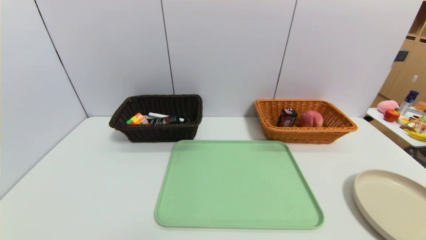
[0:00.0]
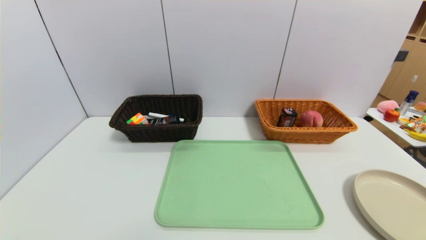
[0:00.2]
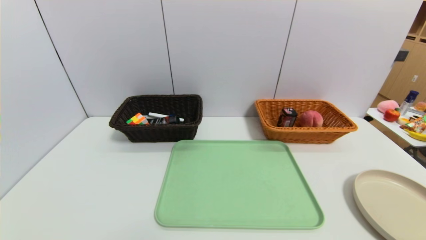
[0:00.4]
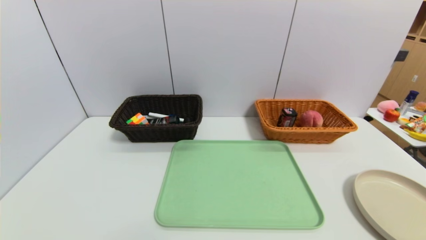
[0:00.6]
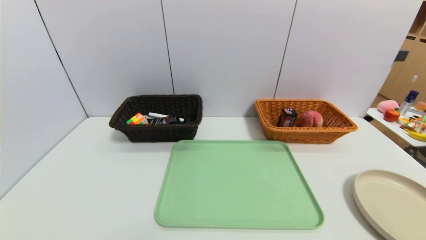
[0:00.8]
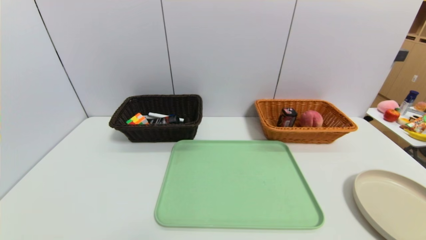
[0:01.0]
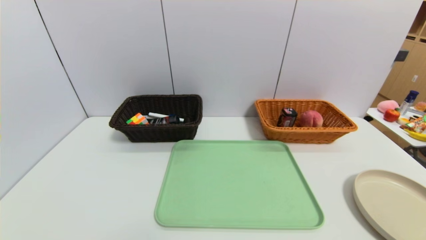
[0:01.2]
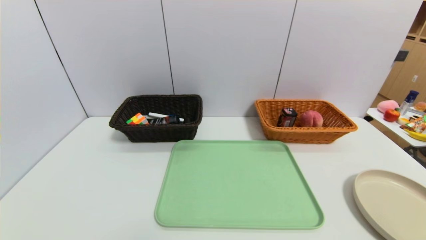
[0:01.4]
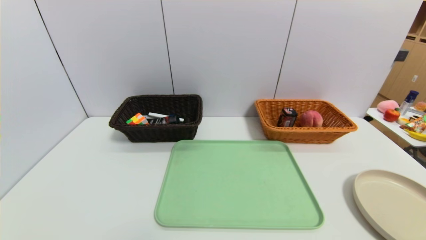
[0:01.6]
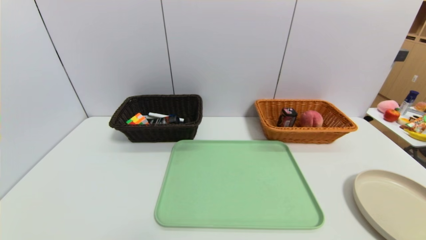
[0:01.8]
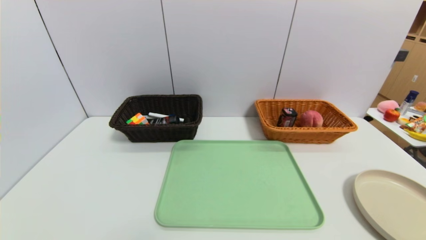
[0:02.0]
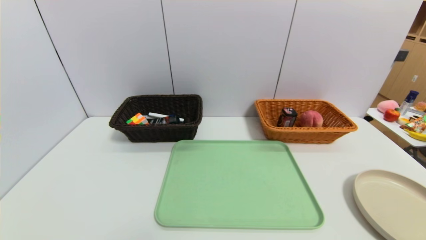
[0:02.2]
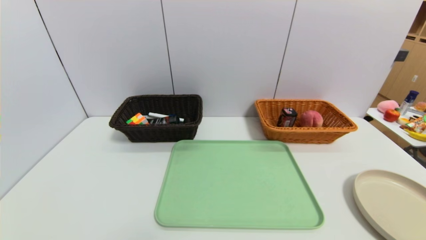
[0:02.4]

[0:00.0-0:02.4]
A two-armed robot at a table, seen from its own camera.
Task of the whole recording: place the food in the right basket with the right gripper, and place the non food items in the left basket with the left gripper.
1.2 to 2.4 s: Both grippers stay put.

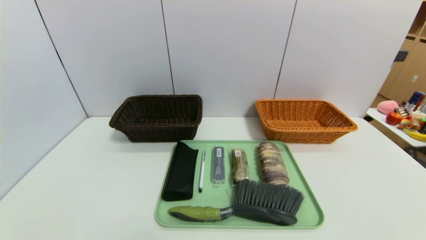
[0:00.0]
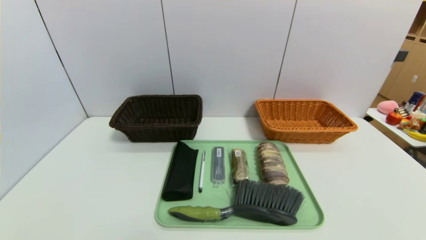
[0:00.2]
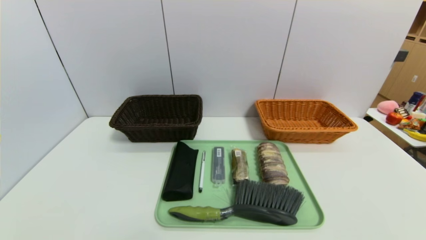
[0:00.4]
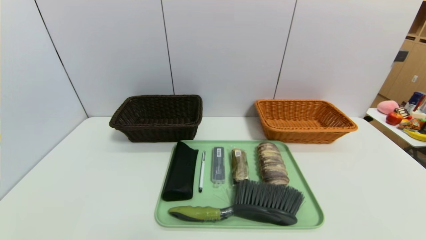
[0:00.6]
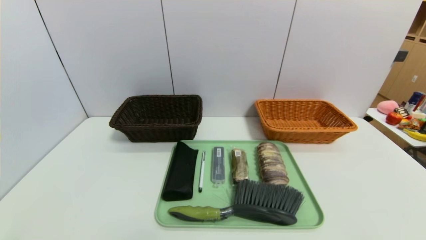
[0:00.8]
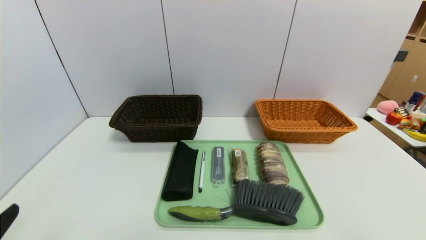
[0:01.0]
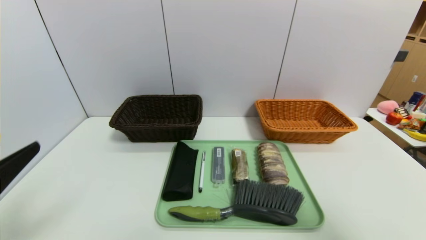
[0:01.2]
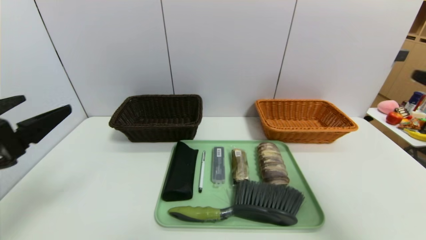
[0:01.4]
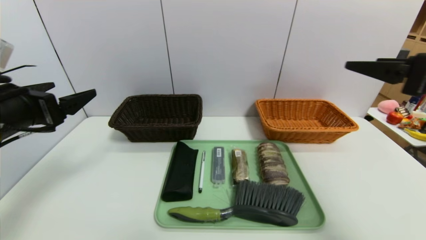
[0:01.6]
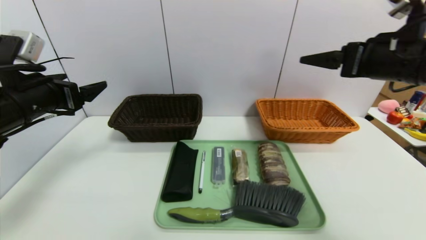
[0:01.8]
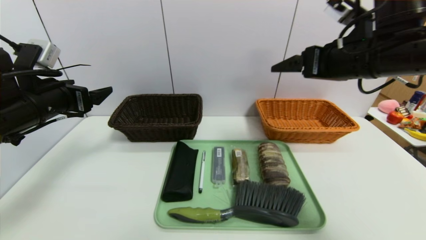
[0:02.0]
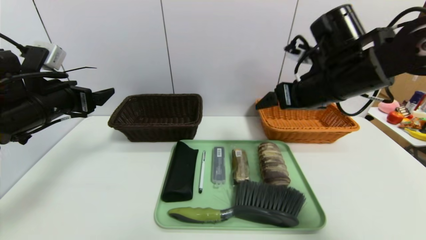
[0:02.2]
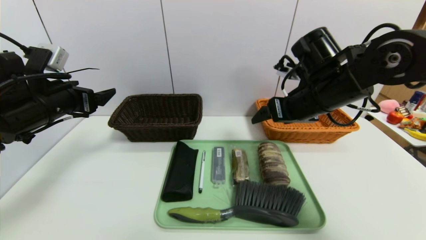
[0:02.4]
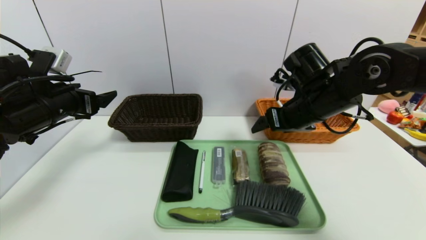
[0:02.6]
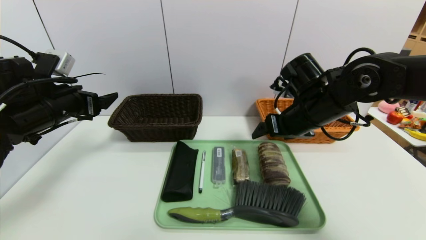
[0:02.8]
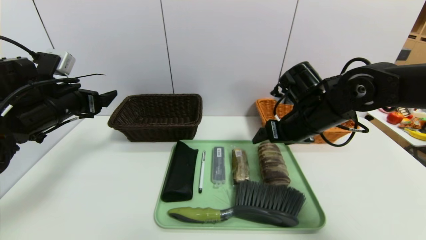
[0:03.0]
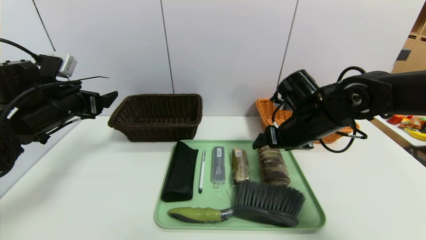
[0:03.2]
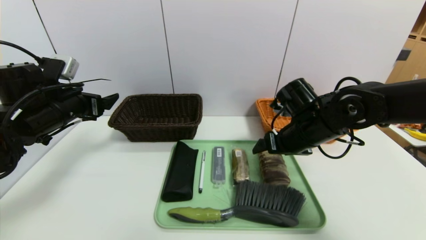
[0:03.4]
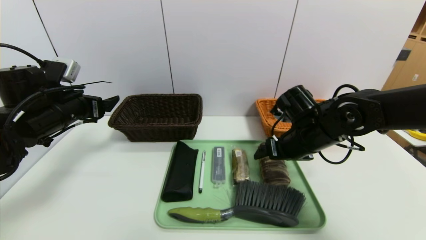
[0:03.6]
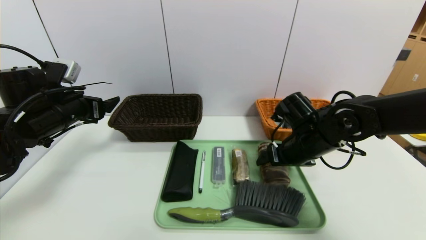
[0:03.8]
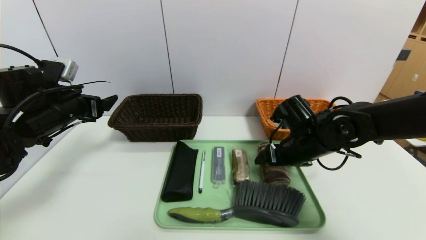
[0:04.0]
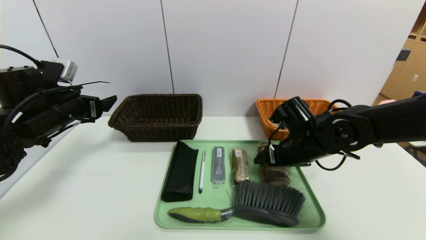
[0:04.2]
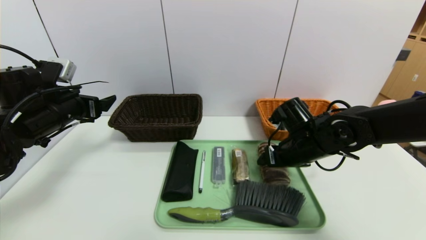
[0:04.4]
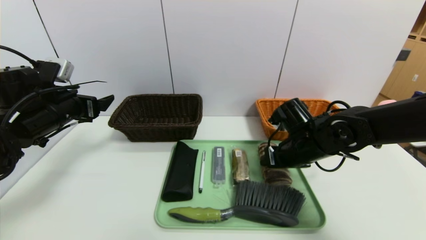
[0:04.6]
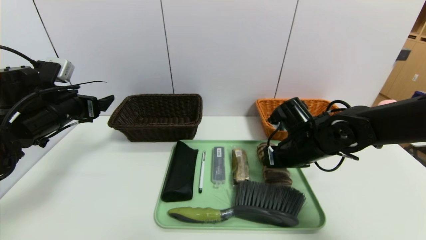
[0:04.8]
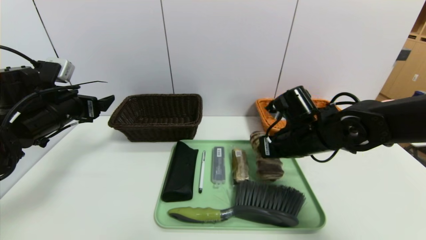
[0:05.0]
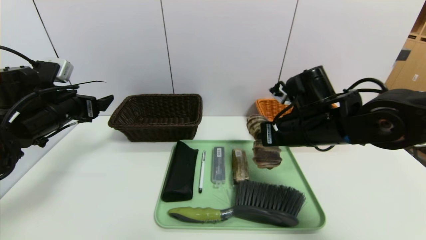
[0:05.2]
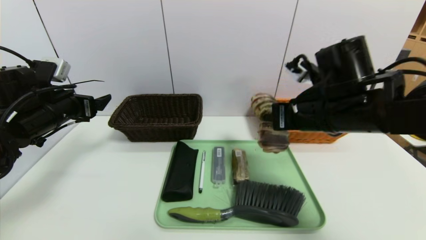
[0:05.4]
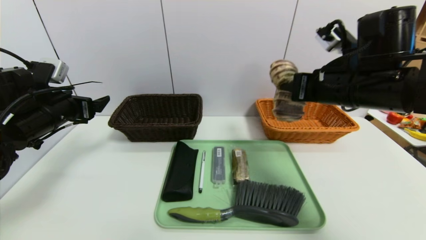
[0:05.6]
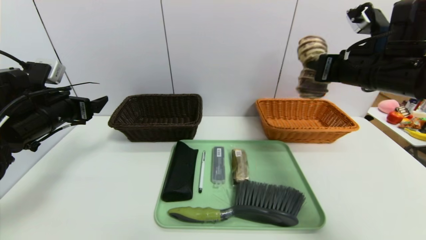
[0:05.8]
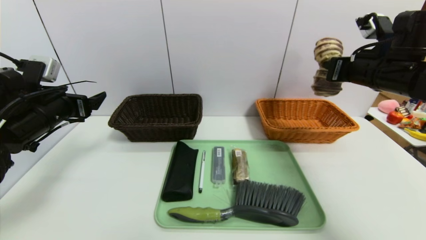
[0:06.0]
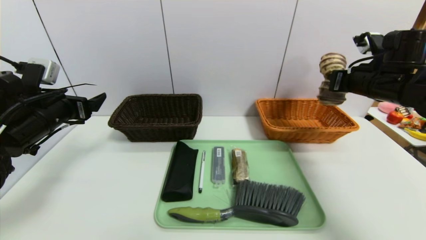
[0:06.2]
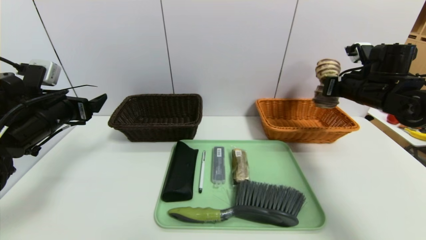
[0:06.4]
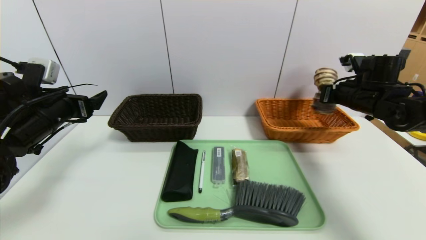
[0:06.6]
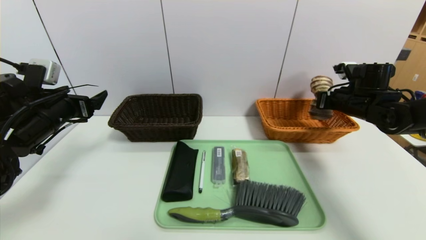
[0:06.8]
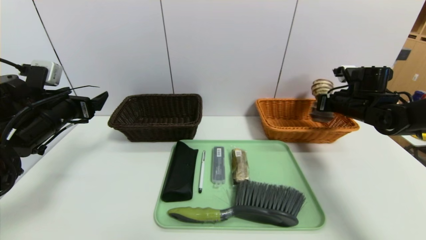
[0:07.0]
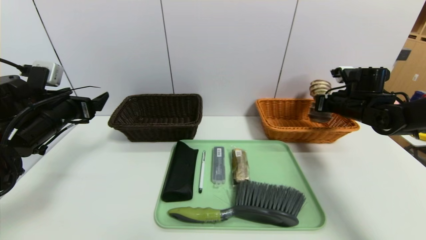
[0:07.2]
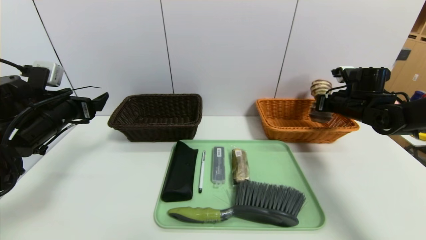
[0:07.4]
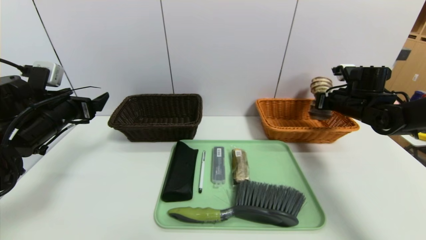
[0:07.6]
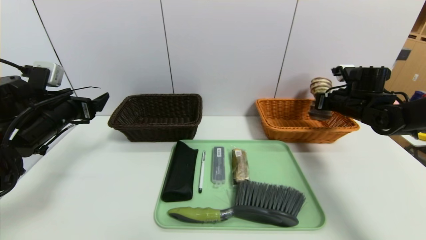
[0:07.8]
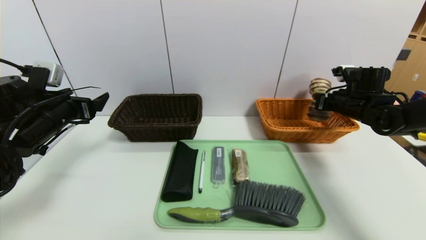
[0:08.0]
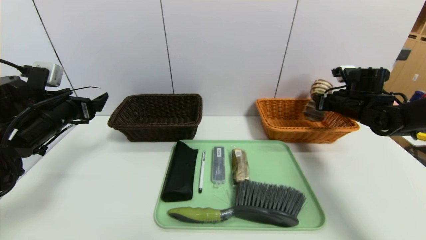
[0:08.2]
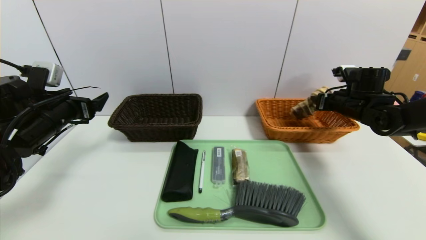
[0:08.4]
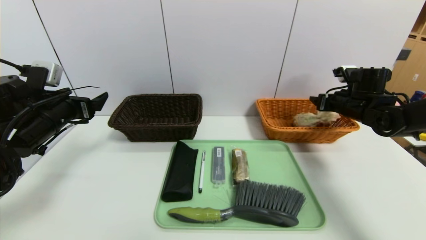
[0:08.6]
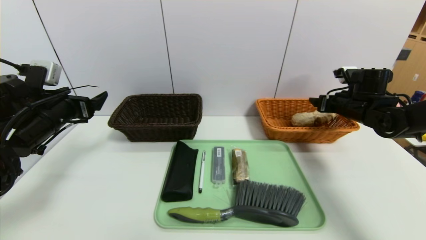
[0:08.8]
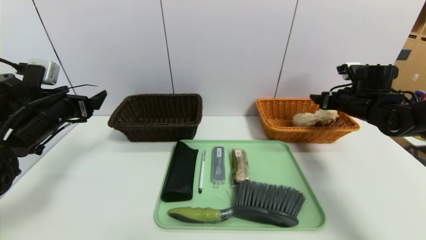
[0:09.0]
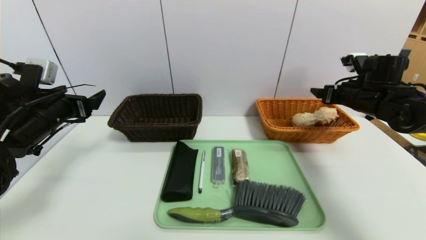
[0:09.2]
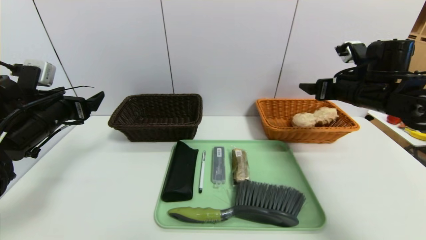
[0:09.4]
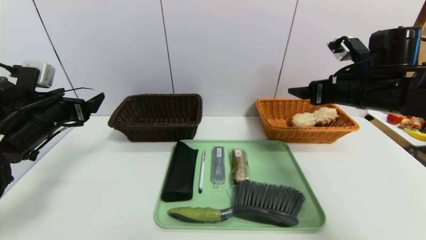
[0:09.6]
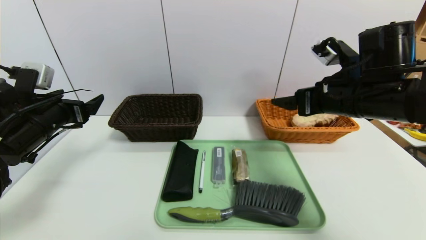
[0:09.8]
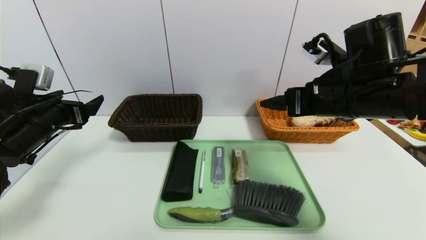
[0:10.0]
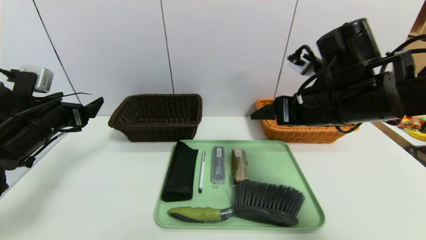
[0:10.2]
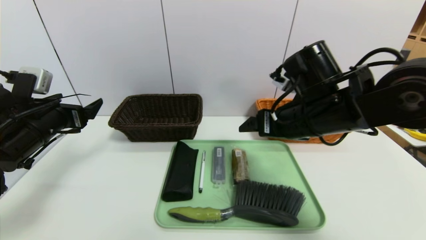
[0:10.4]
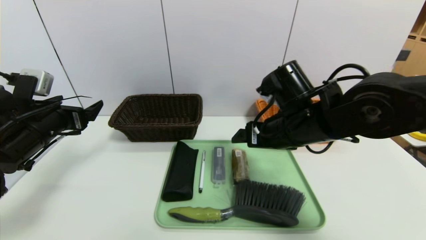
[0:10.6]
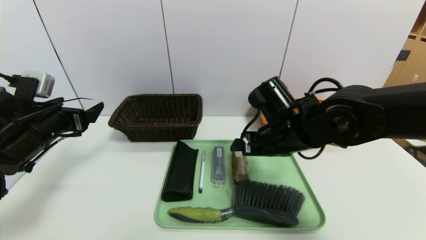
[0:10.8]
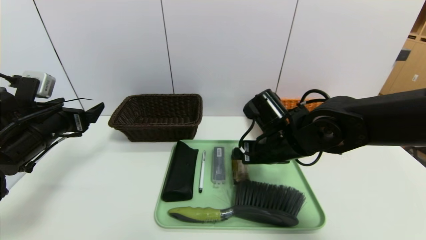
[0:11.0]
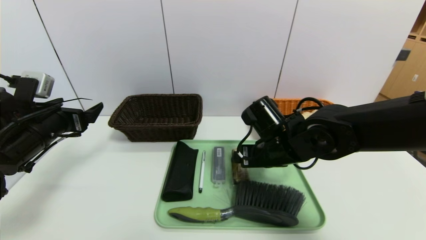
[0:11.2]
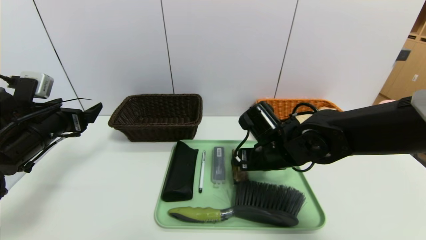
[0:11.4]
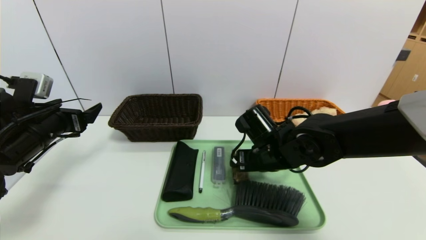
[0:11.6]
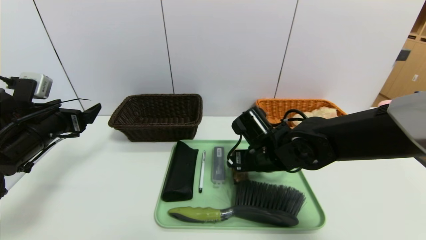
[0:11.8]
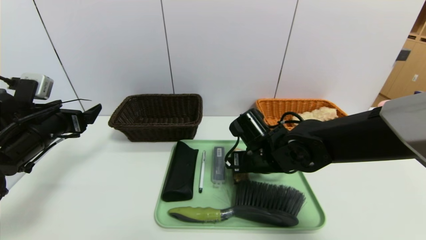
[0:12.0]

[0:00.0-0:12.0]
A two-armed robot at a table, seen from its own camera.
Task of the whole recording: place the food in the right basket with the right gripper, and place the non food items in the left basket with the left gripper.
Step, 0.0 to 8.6 s: Grasp the long bread and put it in the right basket.
0.0 to 1.6 s: The right gripper shifts roughly 35 cm upward and forward; the left gripper goes some 30 cm forward and upward.
1.6 to 3.0 s: The left gripper is displaced forward by about 10 cm. The right gripper travels to the left, forward and downward by approximately 20 cm.
3.0 to 4.4 s: The right gripper travels downward by roughly 5 cm.
4.4 to 6.0 s: The right gripper heads upward and to the right, covering roughly 20 cm, and closes up.
6.0 to 7.6 s: The right gripper shifts approximately 15 cm downward and forward.
7.6 to 9.0 s: The right gripper opens up.
9.0 to 10.4 s: The right gripper moves to the left and backward, some 25 cm.
10.4 to 12.0 s: The right gripper goes roughly 15 cm downward and to the left.

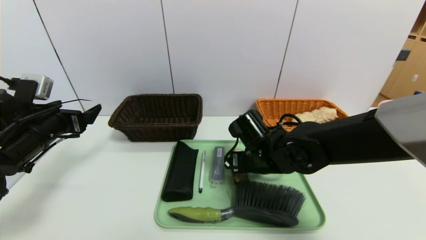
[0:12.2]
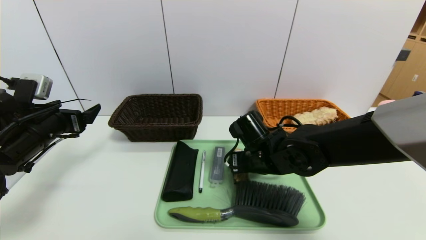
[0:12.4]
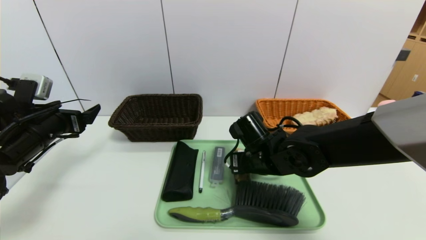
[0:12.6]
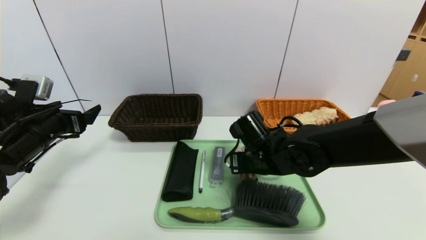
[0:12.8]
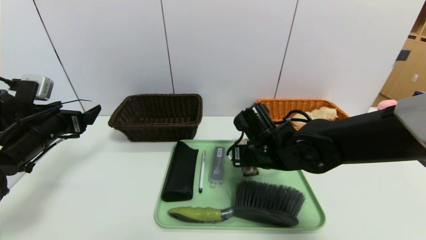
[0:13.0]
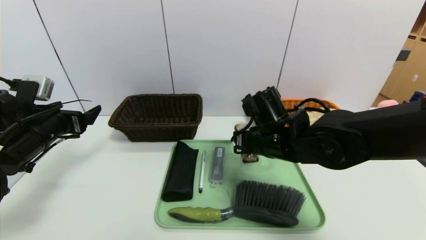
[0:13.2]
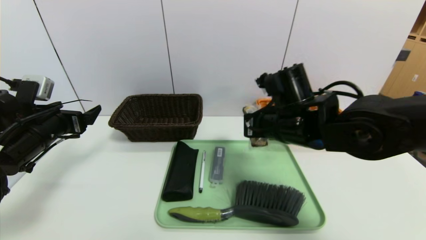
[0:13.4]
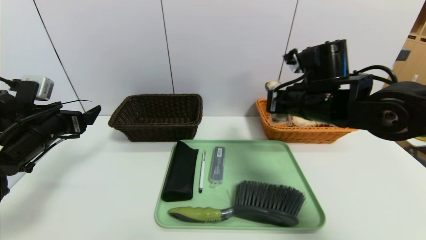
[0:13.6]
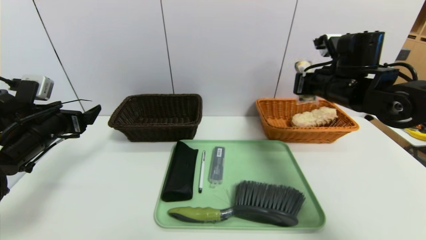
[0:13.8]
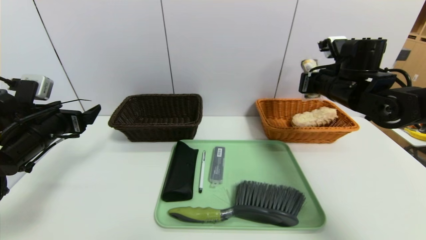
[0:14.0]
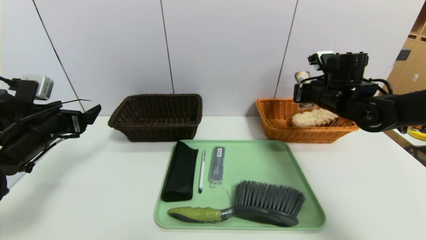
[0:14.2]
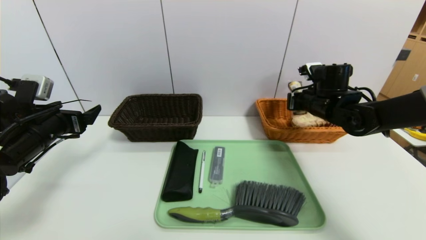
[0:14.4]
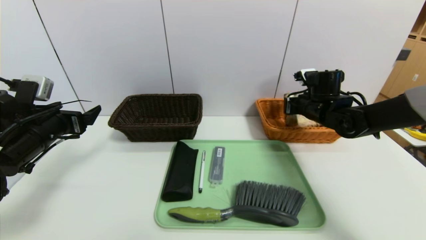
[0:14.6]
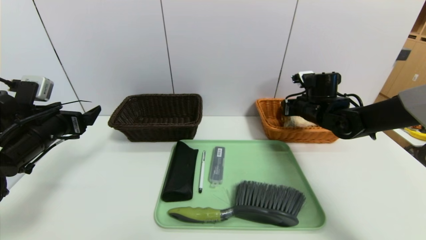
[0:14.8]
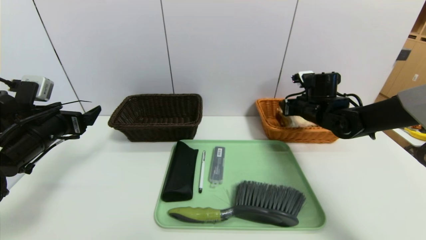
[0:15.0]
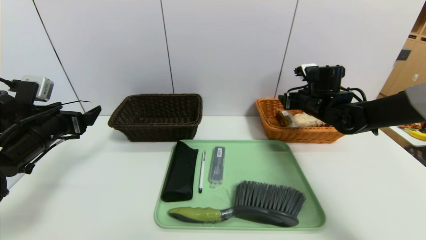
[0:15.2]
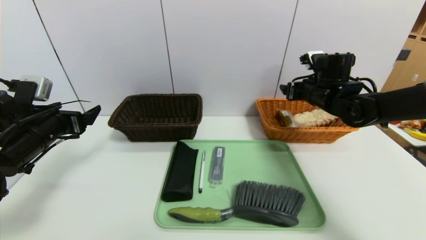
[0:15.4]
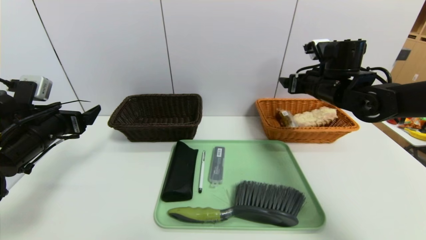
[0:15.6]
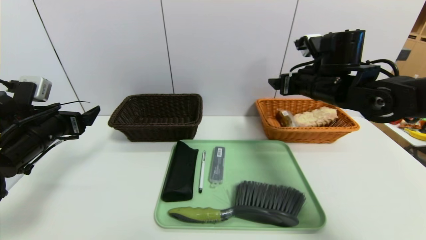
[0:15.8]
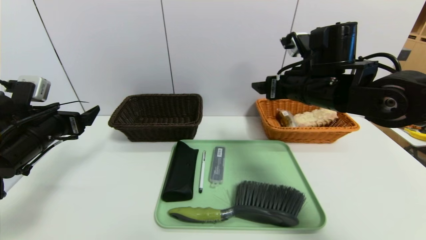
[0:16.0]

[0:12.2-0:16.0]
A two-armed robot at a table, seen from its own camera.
Task of the whole recording: place the food in the right basket with the right gripper, and place the non food items in the left basket with the left gripper.
Step, 12.2 to 15.0 s: Grasp the chocolate and put it in the right basket.
12.2 to 13.4 s: The right gripper heads upward, covering about 10 cm, and closes its fingers.
13.4 to 14.8 s: The right gripper heads forward and to the right, covering about 20 cm, and opens its fingers.
14.8 to 16.0 s: The right gripper travels upward, backward and to the left by roughly 15 cm, and opens.
